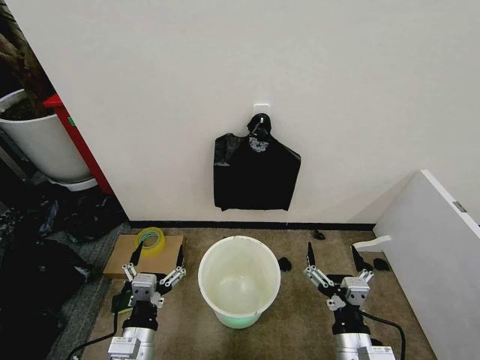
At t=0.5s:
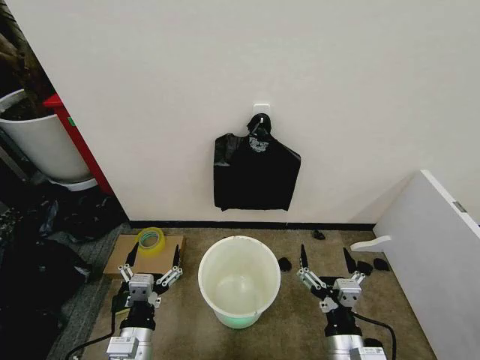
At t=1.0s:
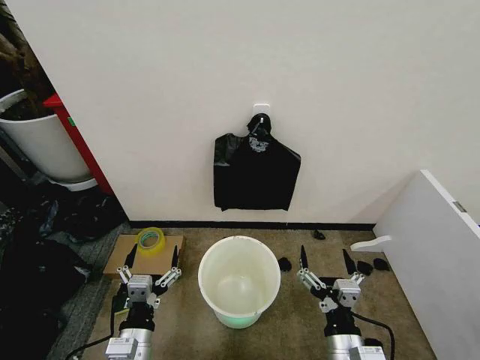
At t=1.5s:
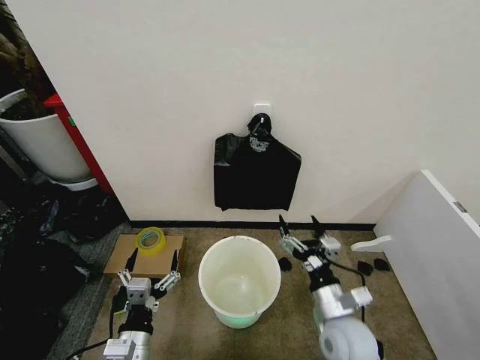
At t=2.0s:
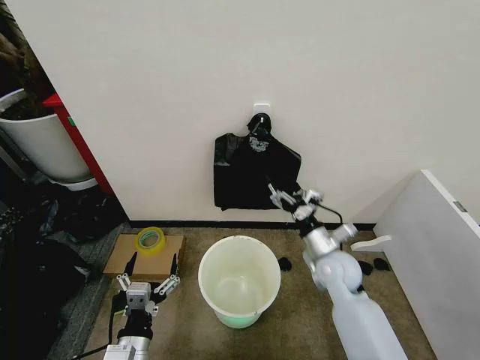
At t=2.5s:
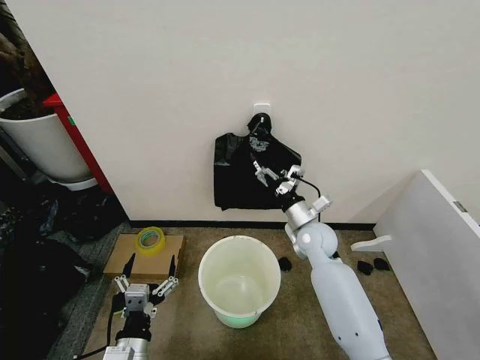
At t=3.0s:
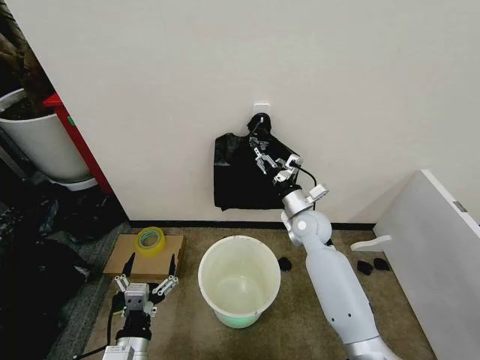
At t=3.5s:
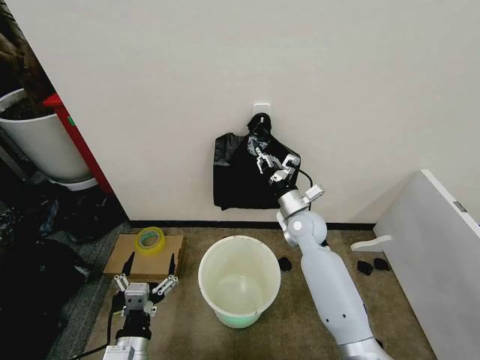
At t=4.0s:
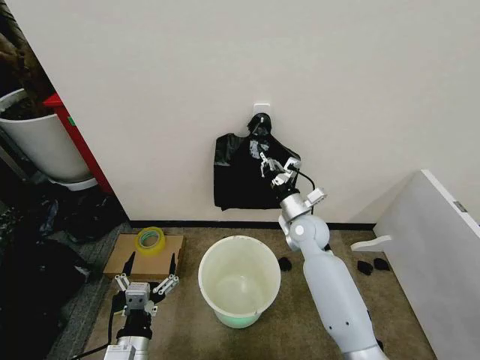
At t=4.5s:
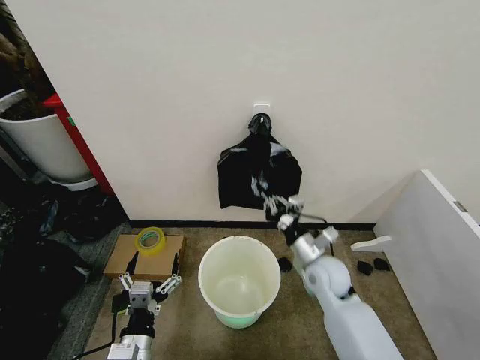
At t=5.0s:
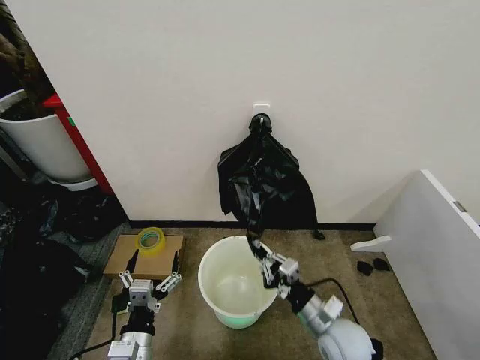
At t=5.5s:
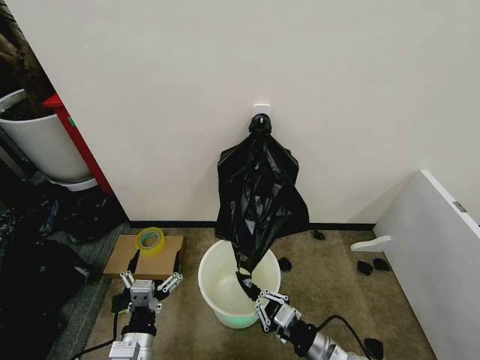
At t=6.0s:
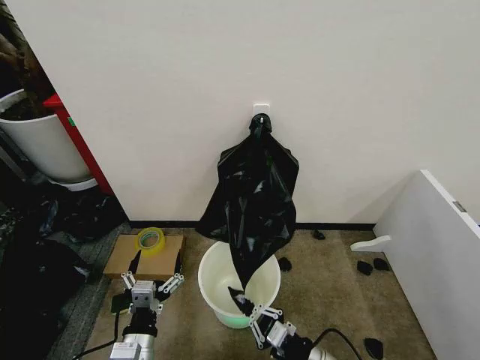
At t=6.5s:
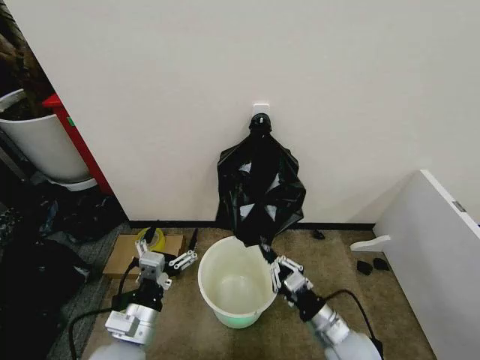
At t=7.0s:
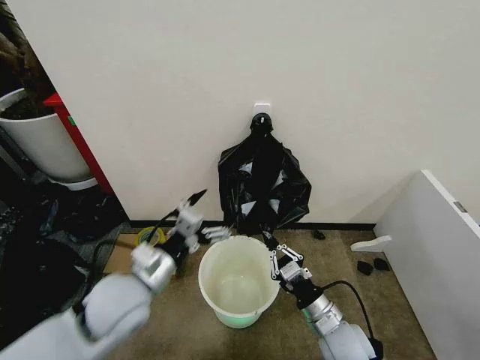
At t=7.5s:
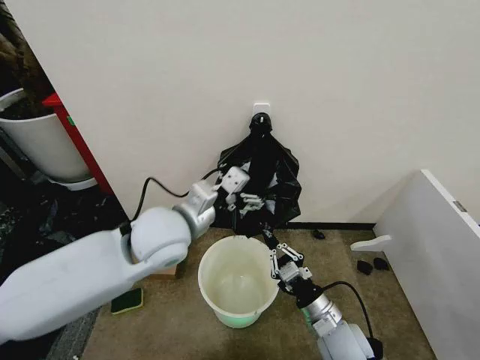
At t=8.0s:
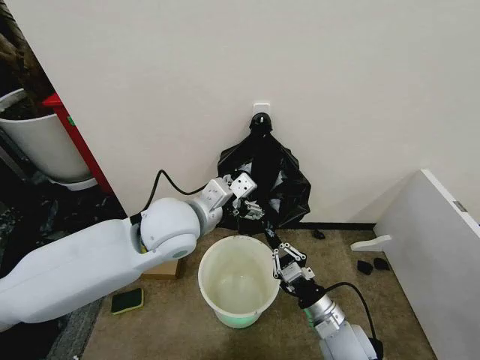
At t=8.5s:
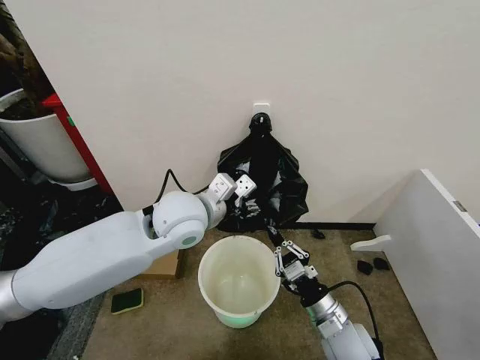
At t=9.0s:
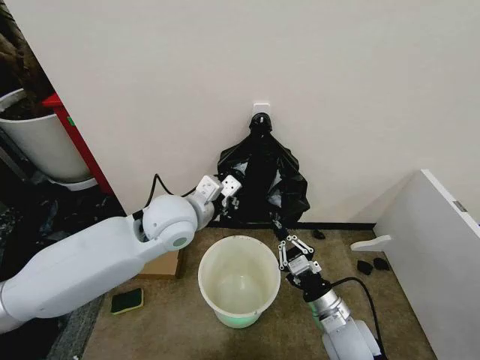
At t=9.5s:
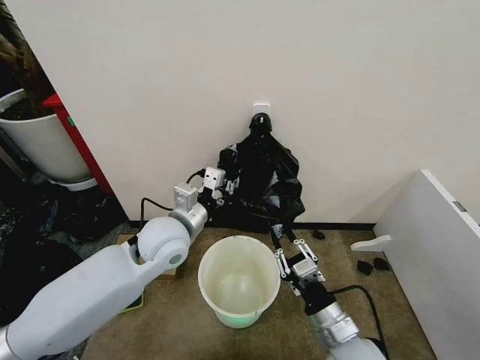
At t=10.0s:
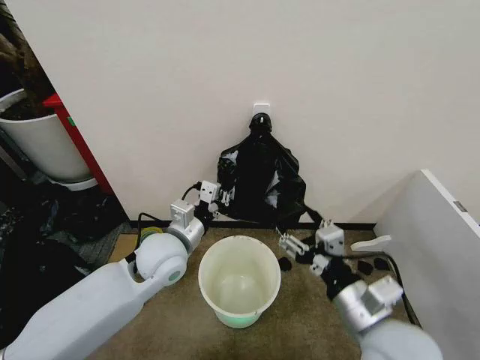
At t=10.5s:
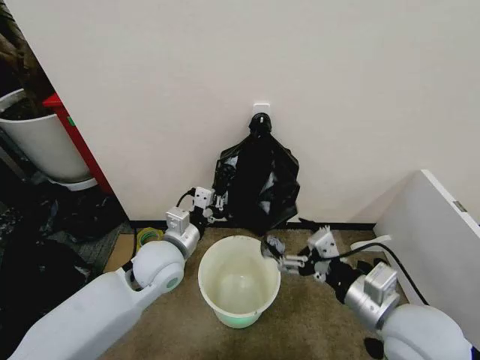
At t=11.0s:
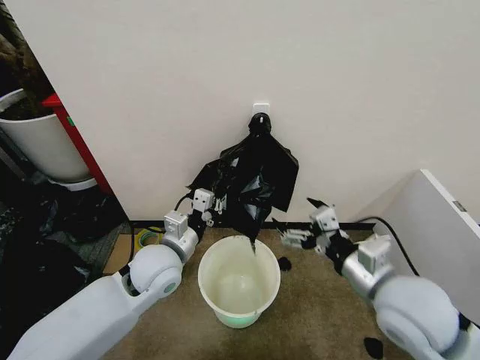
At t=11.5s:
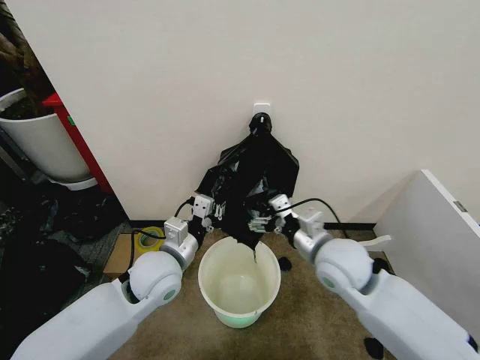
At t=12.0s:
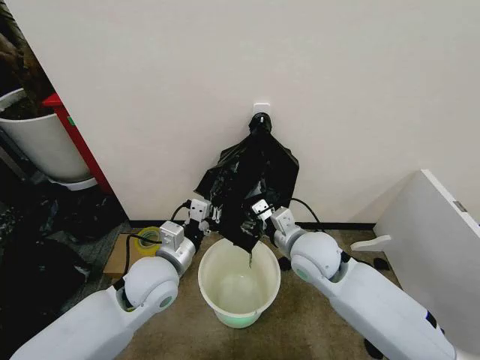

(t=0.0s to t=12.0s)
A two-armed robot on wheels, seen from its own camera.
Task of the whole recording: Place the garbage bag over the trash bin.
t=2.0s - t=4.0s: The right gripper is displaced forward by roughly 10 cm, and closes its fingers.
t=4.0s - t=6.0s: The right gripper goes some 30 cm backward.
t=6.0s - t=8.0s: The left gripper is displaced upward and forward by approximately 30 cm. The right gripper heads forward, covering approximately 5 cm.
t=8.0s - t=10.0s: The left gripper goes about 10 cm downward, and closes up; the right gripper moves upward, approximately 15 cm, and opens its fingers.
t=10.0s - t=12.0s: The right gripper heads forward, covering approximately 20 cm.

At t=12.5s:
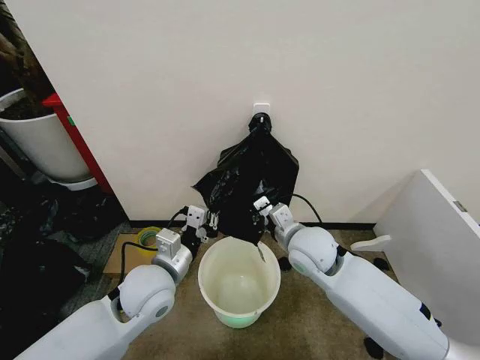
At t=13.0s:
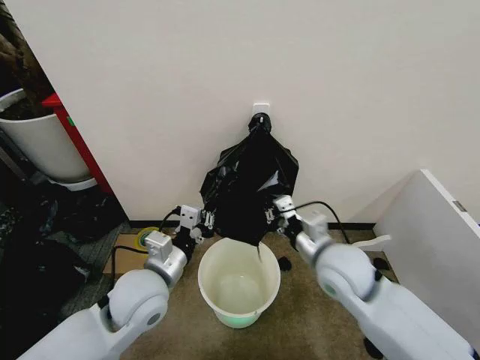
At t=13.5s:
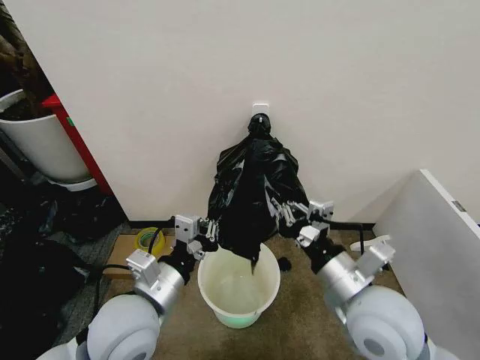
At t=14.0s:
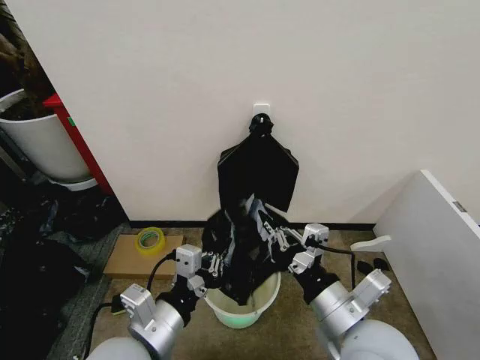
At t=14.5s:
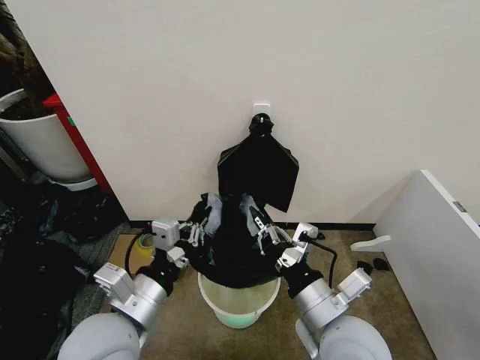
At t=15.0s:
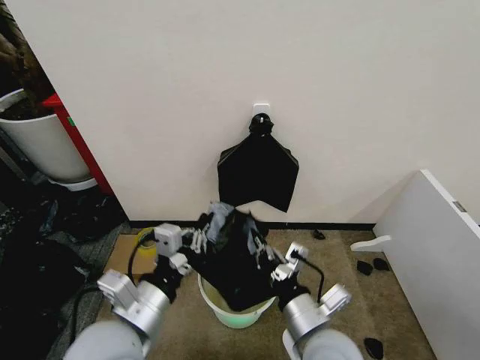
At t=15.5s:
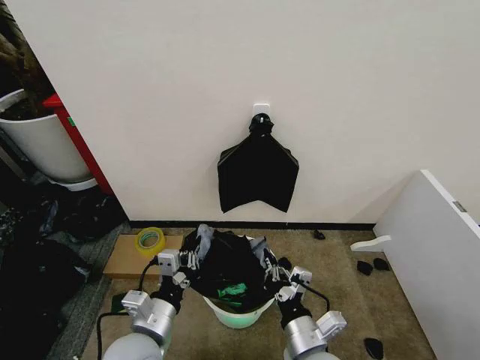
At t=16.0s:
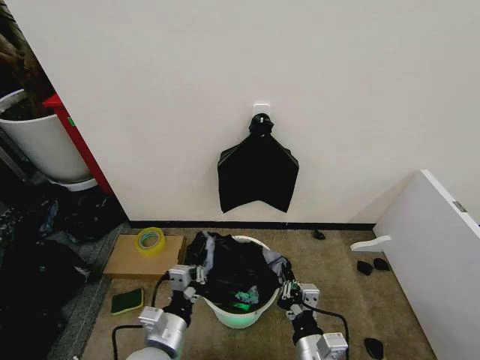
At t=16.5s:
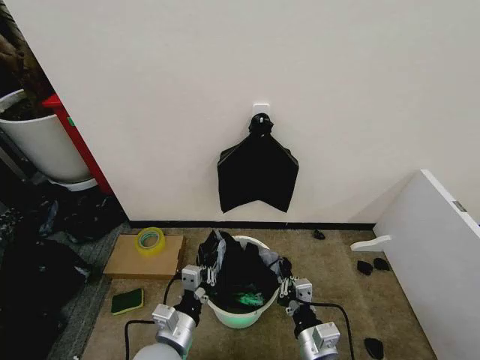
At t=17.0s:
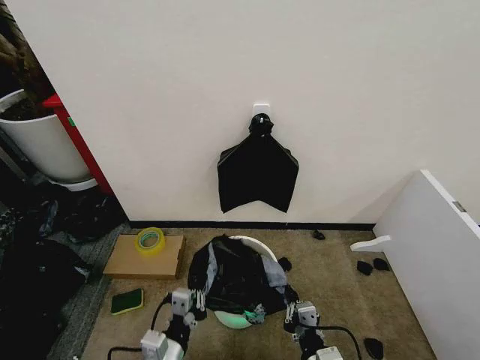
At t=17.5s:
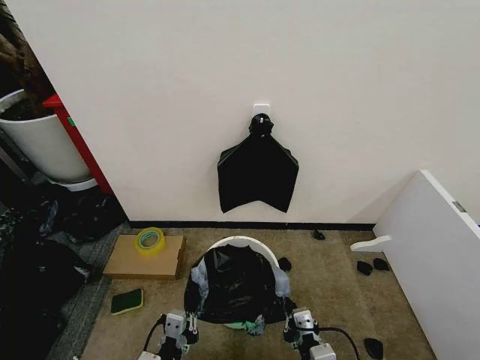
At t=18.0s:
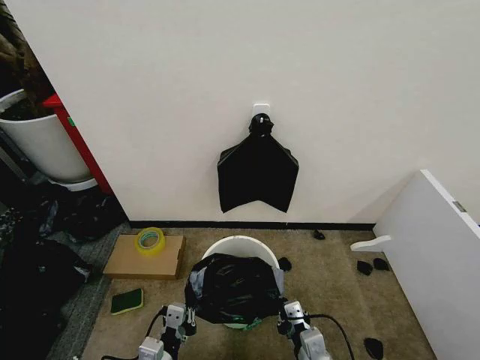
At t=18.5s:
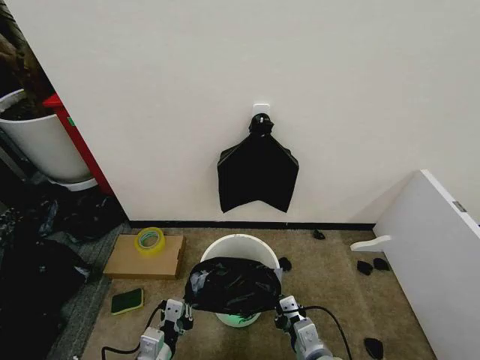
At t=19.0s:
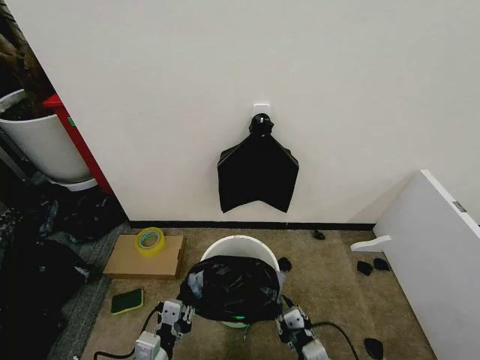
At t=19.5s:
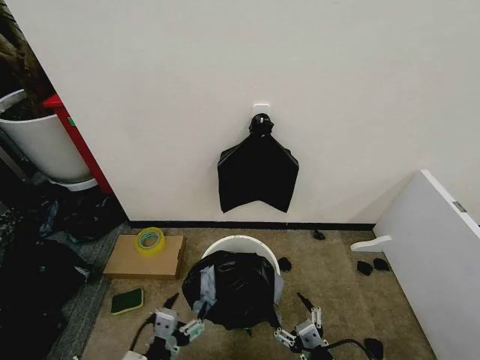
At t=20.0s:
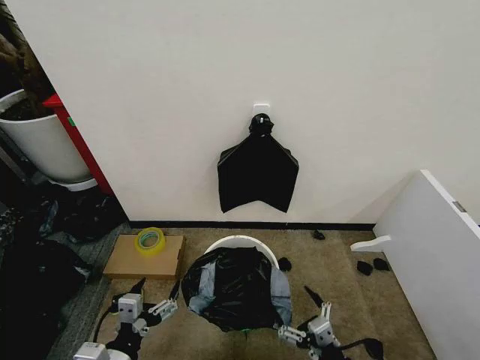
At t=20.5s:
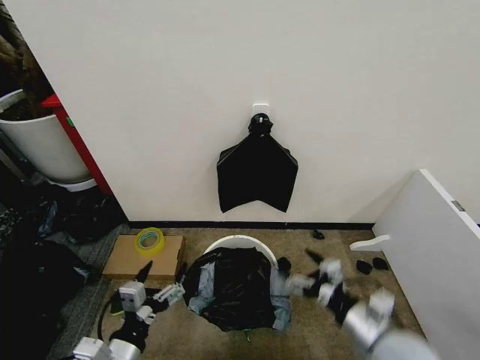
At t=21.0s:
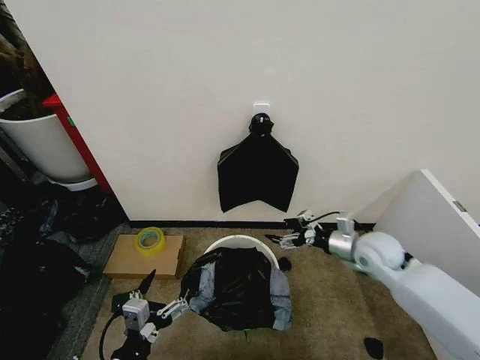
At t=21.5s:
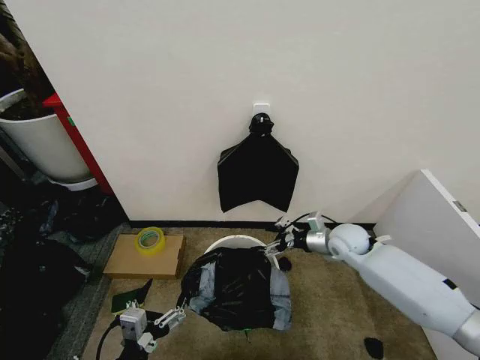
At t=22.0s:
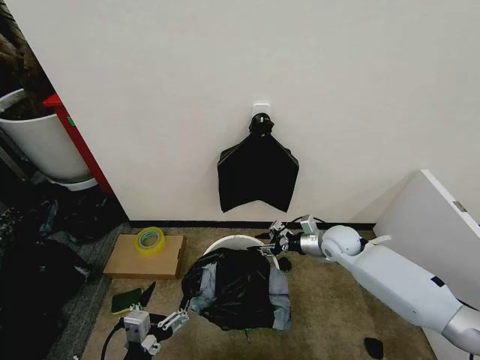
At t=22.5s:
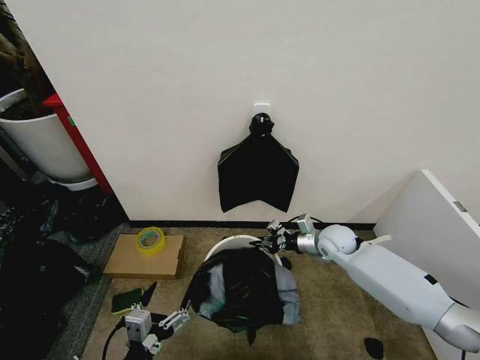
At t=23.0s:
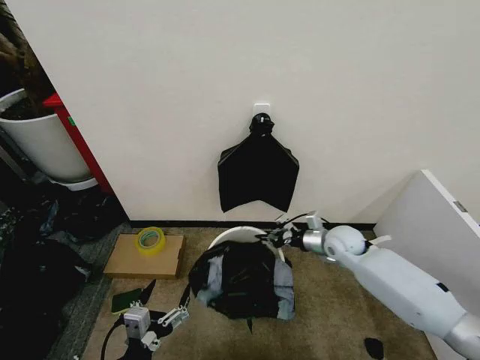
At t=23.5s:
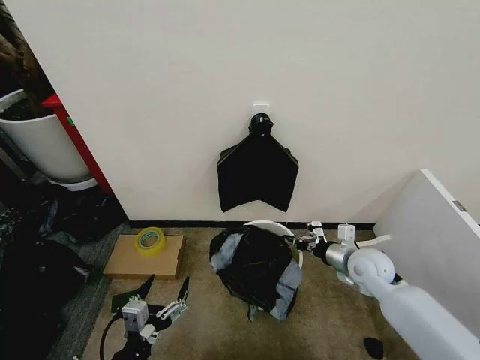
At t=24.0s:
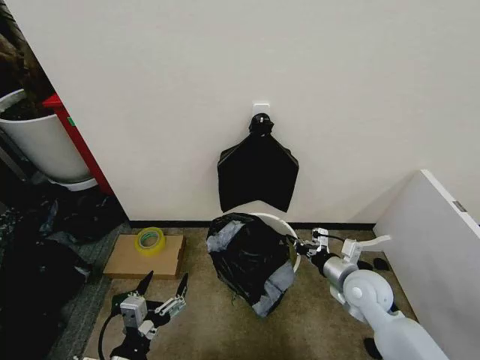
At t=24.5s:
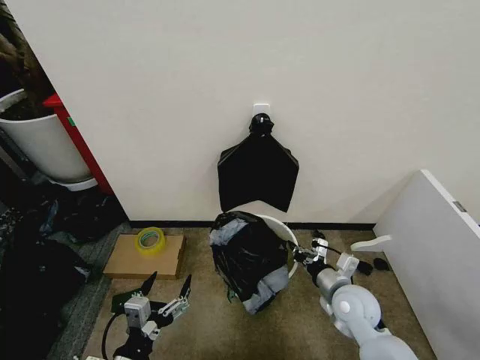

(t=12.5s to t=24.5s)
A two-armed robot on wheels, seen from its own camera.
Task of the whole recording: Place the garbage bag over the trash bin.
t=12.5s - t=14.5s: The right gripper shifts about 20 cm backward. Meanwhile the left gripper heads backward and upward, covering approximately 10 cm.
t=14.5s - t=16.5s: The two grippers go approximately 15 cm downward.
t=16.5s - t=18.5s: The left gripper shifts some 5 cm to the left.
t=18.5s - t=20.5s: The left gripper heads upward, covering roughly 10 cm, and opens up; the right gripper is displaced upward and to the right by approximately 15 cm, and opens.
t=20.5s - t=22.5s: The right gripper is displaced forward by approximately 30 cm, and closes its fingers. Meanwhile the left gripper moves some 5 cm.
t=22.5s - t=24.5s: The right gripper travels backward by roughly 15 cm.

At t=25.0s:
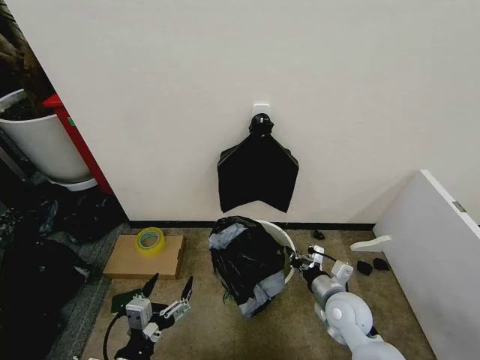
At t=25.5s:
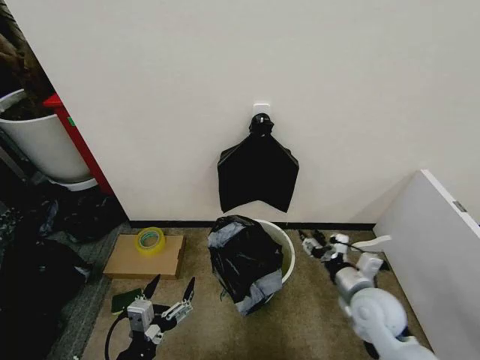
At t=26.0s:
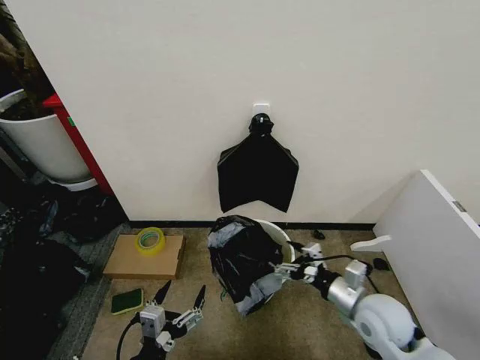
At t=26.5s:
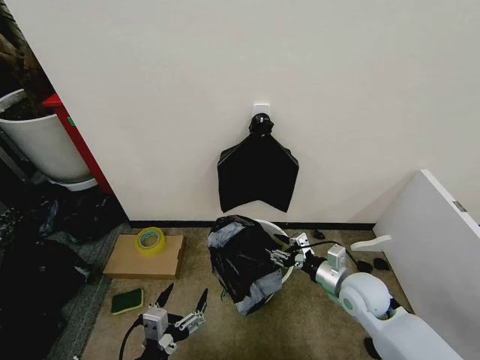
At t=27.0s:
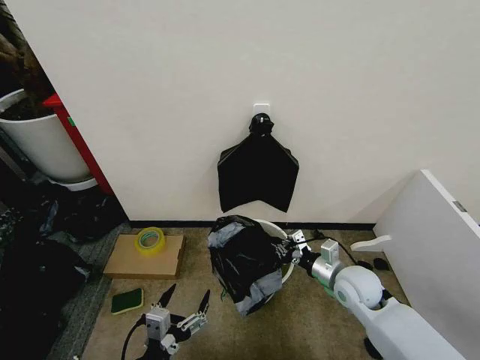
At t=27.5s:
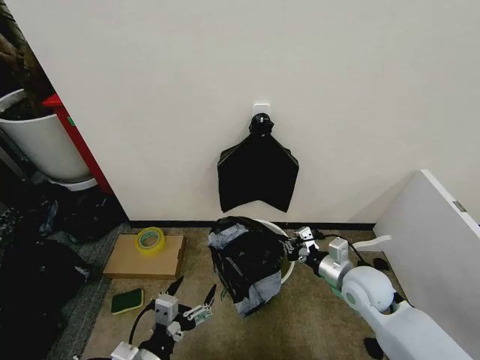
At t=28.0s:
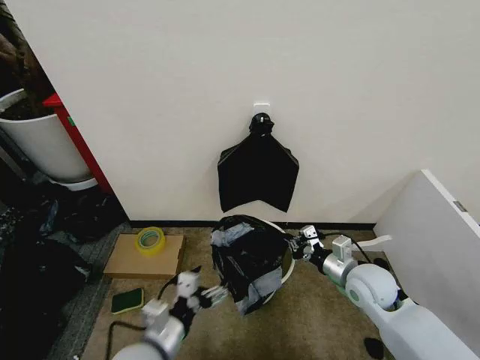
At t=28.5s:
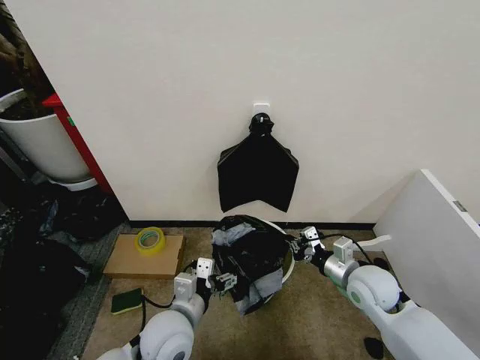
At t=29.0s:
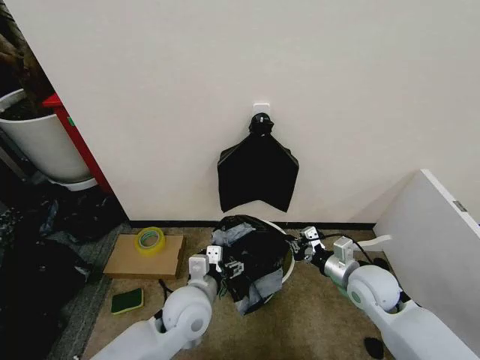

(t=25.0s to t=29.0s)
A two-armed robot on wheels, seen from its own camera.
Task of the whole recording: Place the garbage bag over the trash bin.
t=25.0s - t=27.0s: The right gripper shifts by some 5 cm, and opens, then closes again.
t=27.0s - t=29.0s: The left gripper goes about 20 cm forward and to the right.
